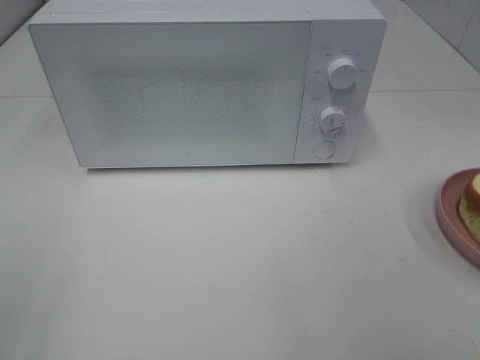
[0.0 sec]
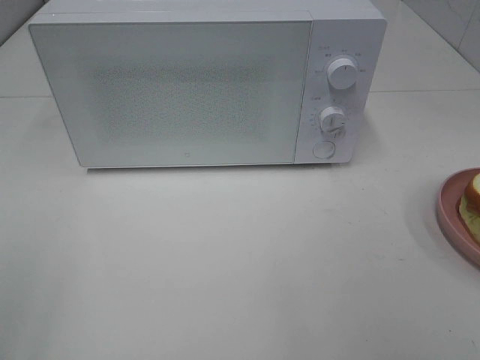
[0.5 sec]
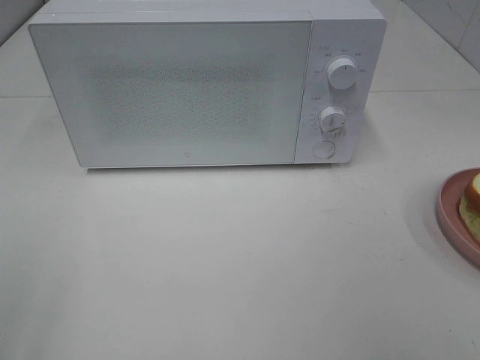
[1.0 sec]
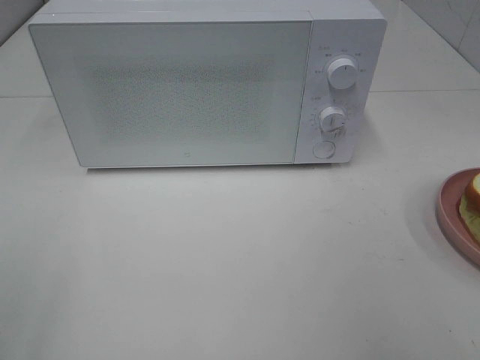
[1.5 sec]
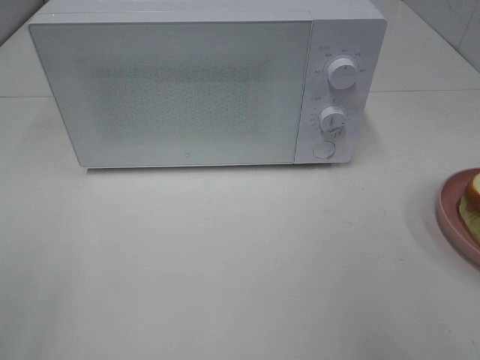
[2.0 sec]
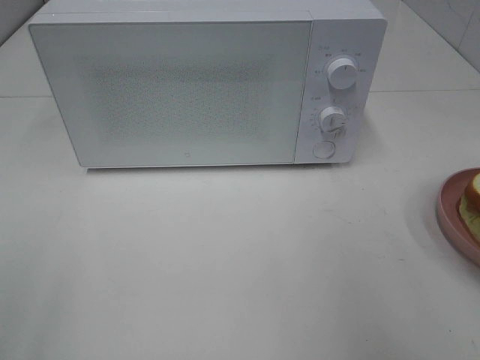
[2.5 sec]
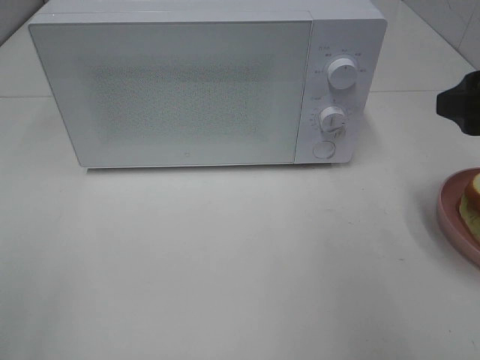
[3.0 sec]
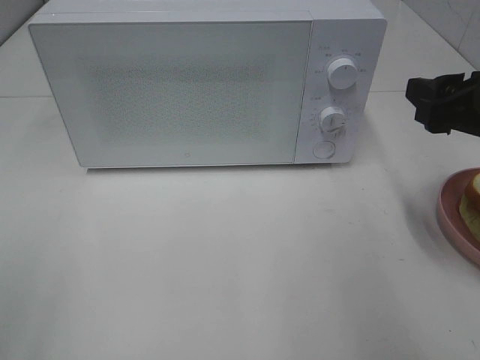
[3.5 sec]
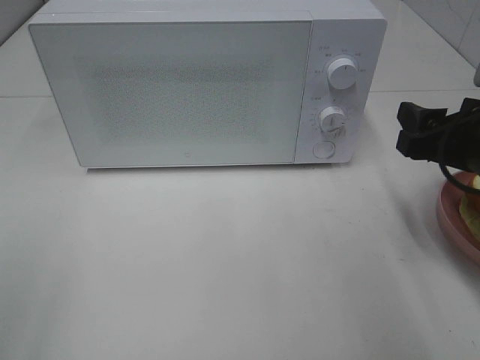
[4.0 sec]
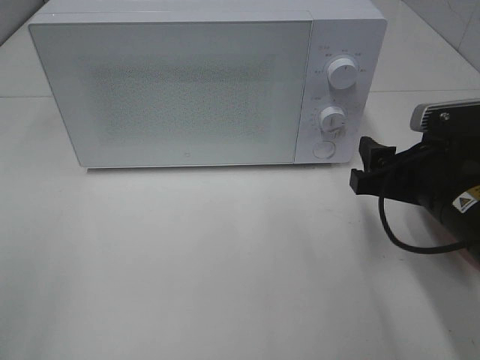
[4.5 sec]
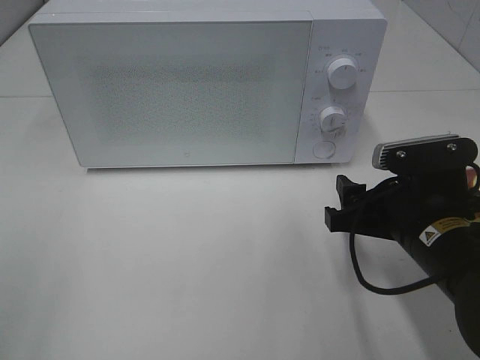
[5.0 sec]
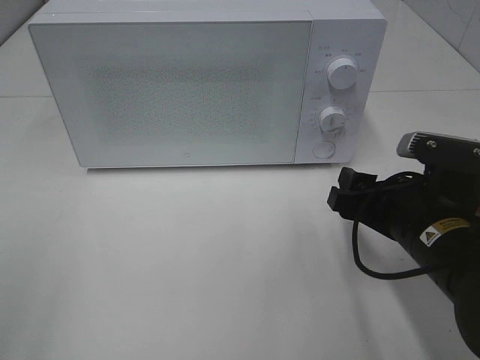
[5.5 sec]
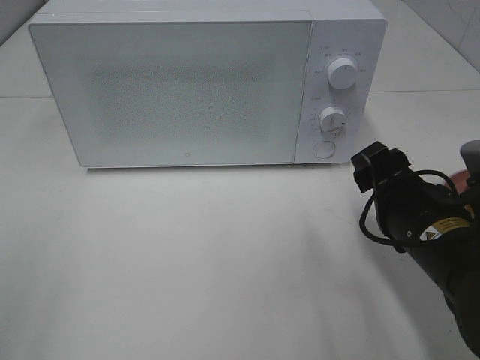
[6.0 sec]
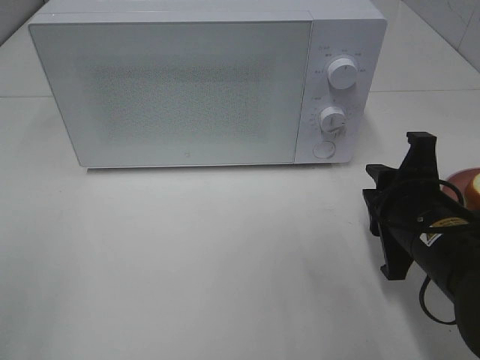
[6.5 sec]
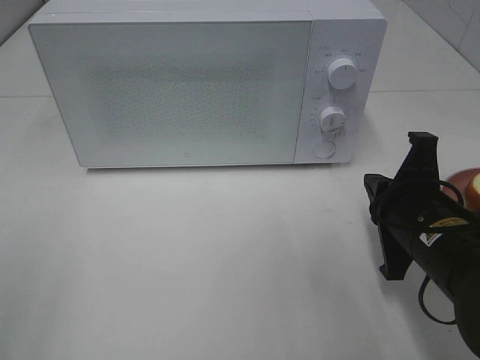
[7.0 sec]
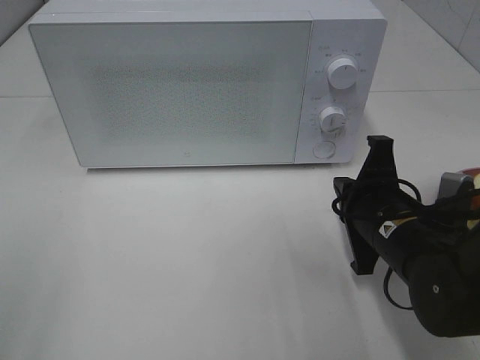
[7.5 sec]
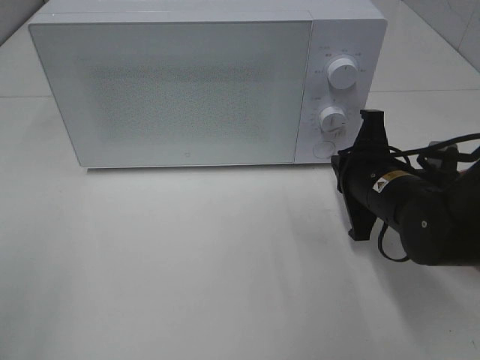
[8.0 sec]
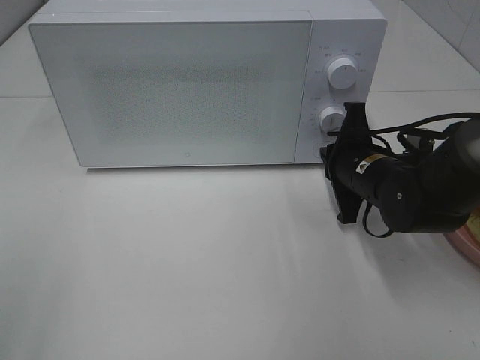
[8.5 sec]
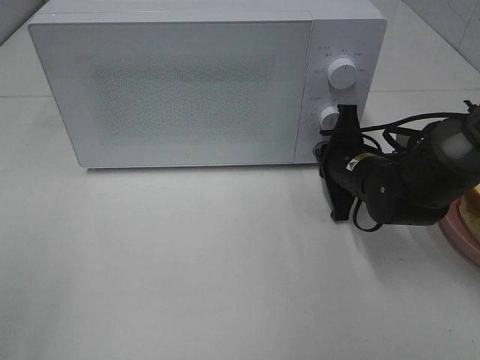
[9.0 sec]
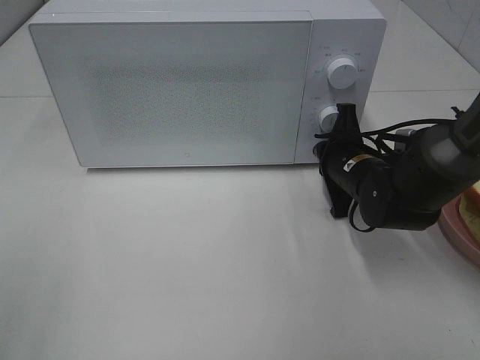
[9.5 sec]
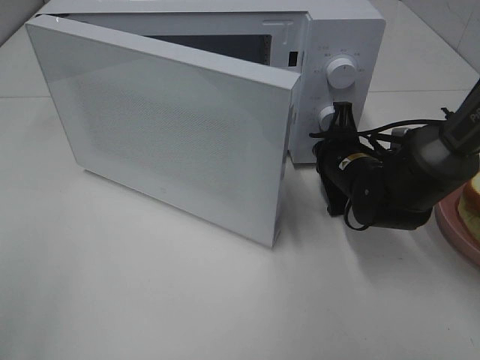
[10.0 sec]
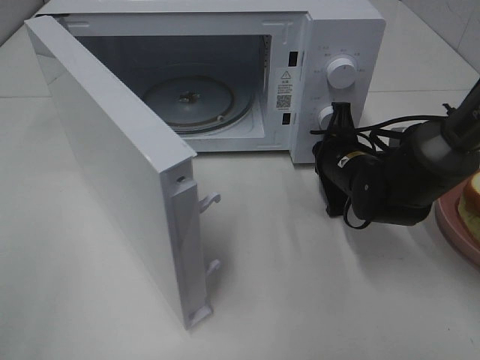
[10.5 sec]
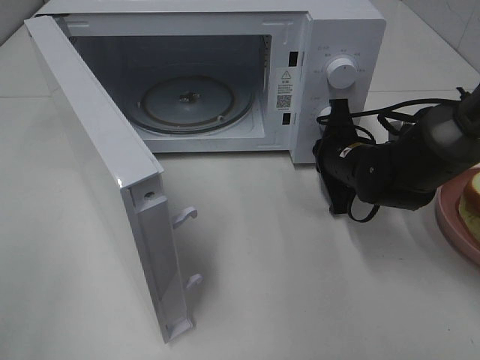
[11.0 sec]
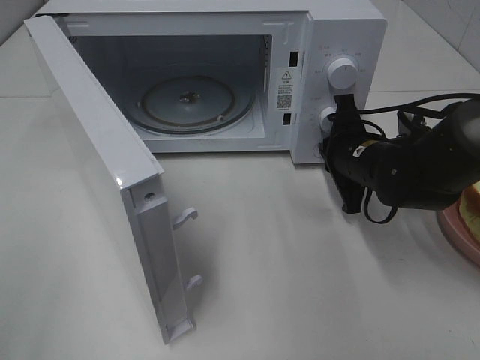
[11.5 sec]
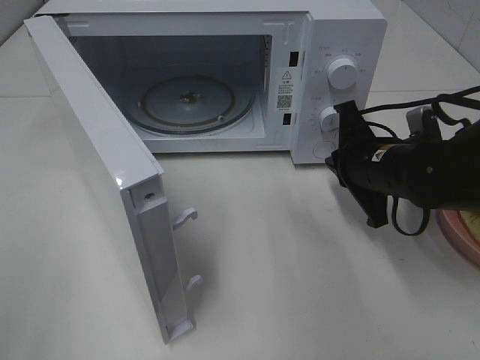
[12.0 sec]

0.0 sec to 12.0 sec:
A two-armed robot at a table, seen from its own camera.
Task of the whole recording: Heat Sandwich.
Step, 0.0 sec to 11.5 sec: Right hand: press the switch.
2.0 sec to 4.0 sec: The right gripper goes approximately 15 cm forward and downward.
4.0 sec to 6.0 sec: The right gripper is displaced to the left and downward by about 10 cm.
6.0 sec to 8.0 sec: The right gripper moves forward, some 10 cm, and closes its fingers.
8.0 sec to 10.0 sec: The right gripper moves forward, some 5 cm.
10.0 sec to 12.0 sec: The right gripper changes place by approximately 5 cm.

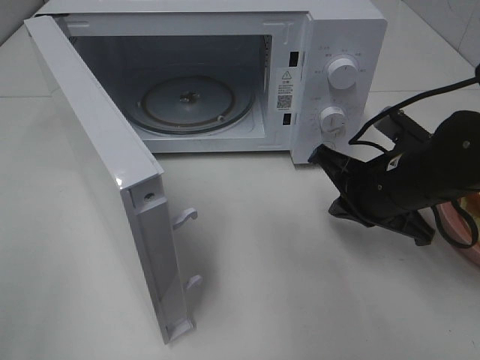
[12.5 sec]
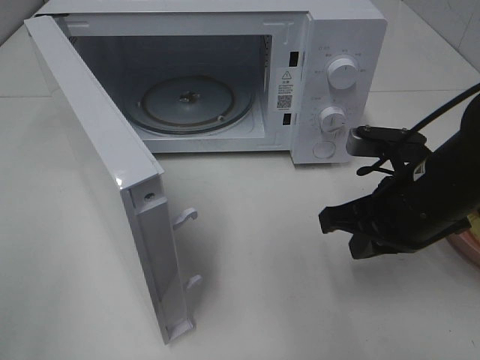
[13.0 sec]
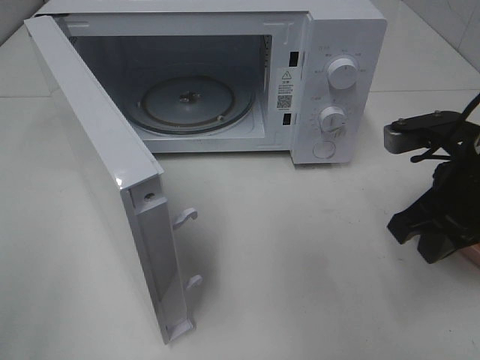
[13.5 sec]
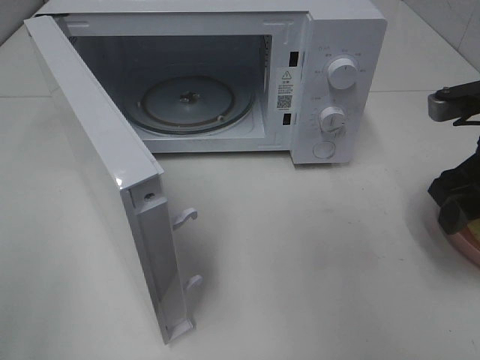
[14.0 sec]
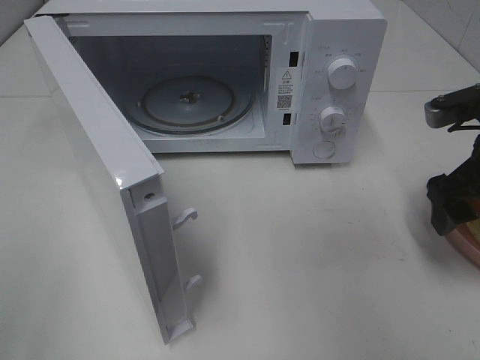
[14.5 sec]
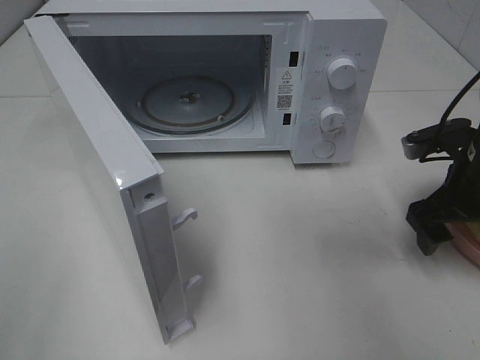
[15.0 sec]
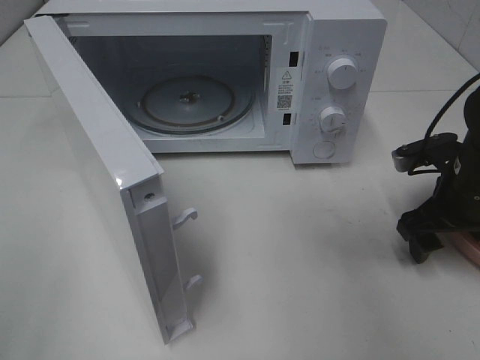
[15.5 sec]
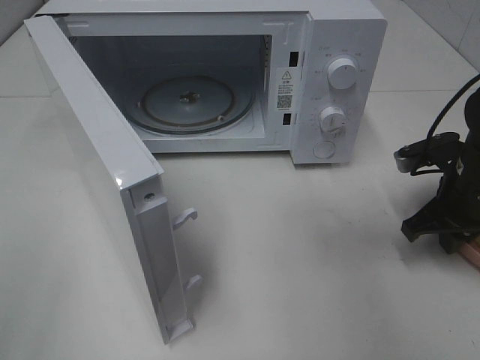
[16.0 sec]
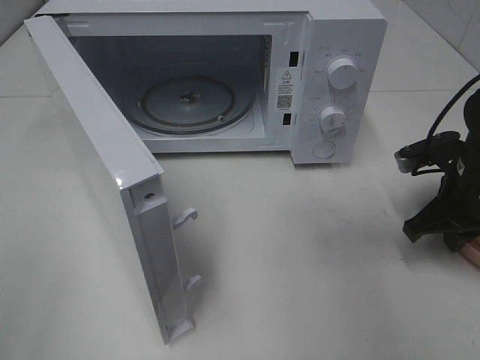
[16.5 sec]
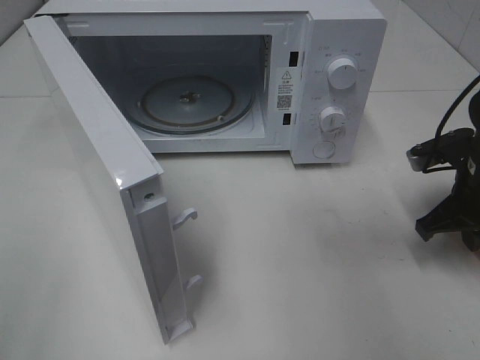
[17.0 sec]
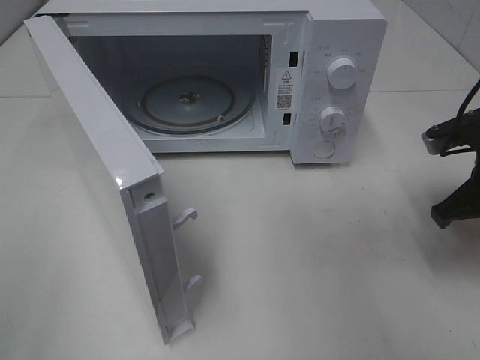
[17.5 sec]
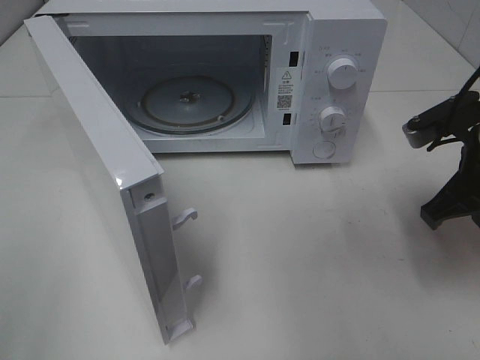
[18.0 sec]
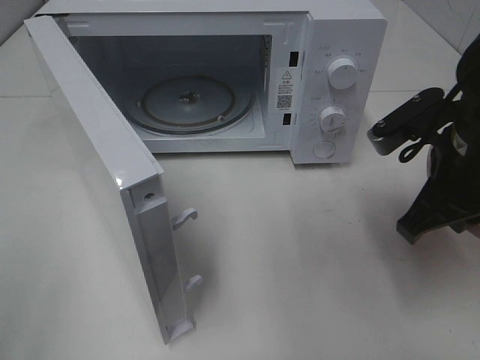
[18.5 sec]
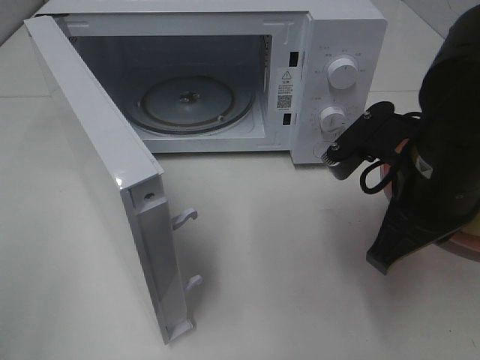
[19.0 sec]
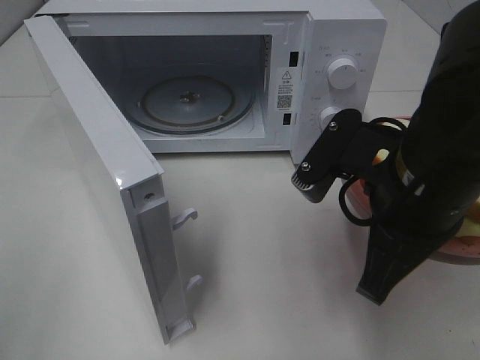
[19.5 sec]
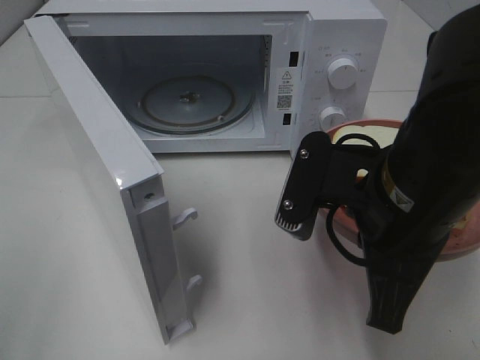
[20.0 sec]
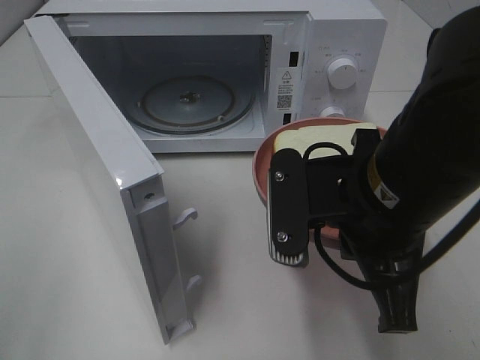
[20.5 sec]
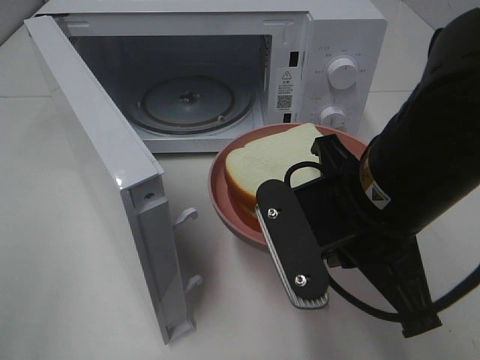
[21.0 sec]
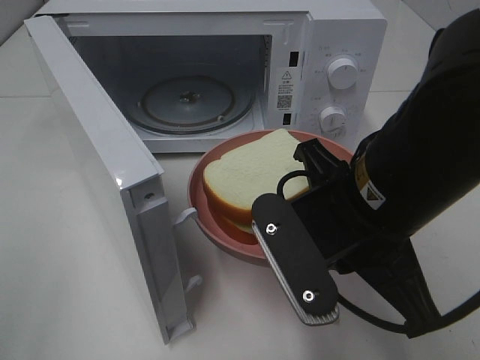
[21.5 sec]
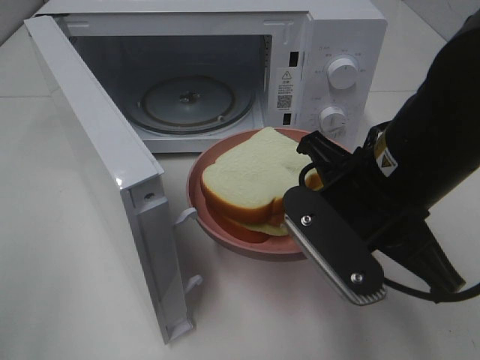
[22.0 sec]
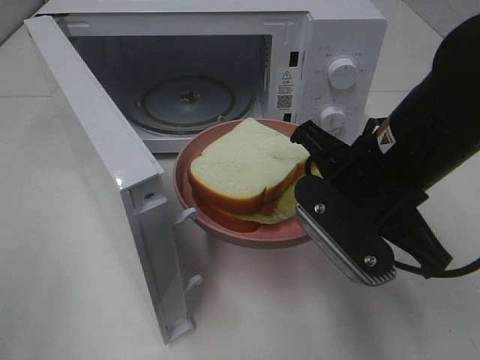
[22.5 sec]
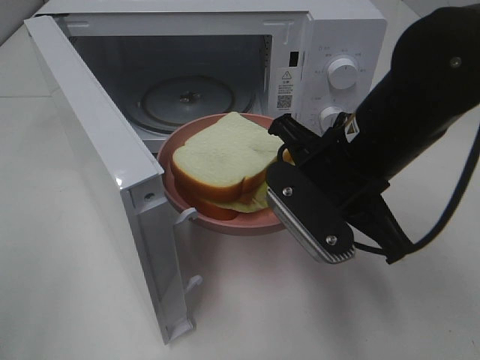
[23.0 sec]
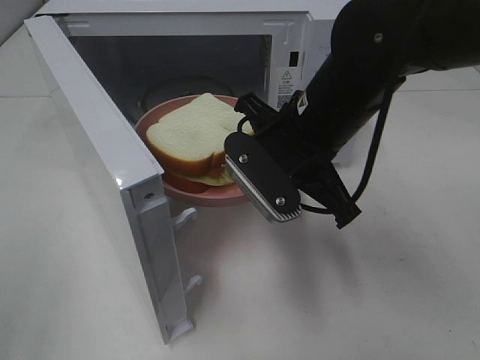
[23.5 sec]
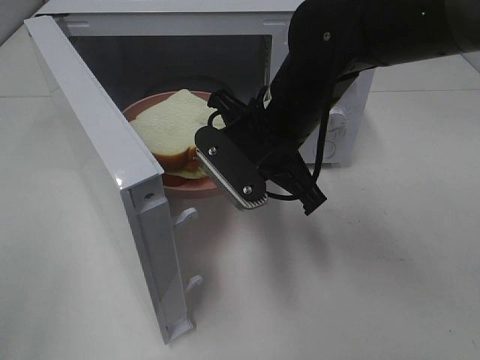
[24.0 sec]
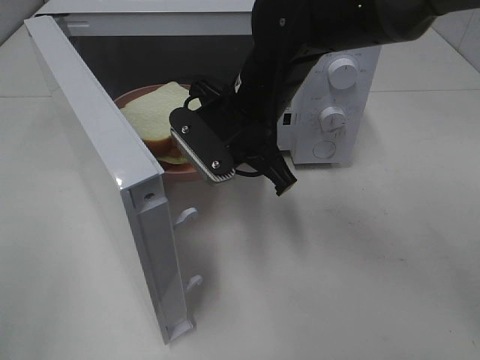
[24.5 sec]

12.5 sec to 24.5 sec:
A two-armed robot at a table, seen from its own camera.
Task of the whole recording: Heat Sandwich.
Step, 12.5 sec to 16.0 sec: Right hand: grab the plate with the sandwich.
12.5 sec to 14.5 sec: The right gripper is displaced to the right and upward by some 10 cm, and opens.
14.5 sec to 16.5 sec: The right gripper goes roughly 10 cm downward, and closes up.
16.5 sec to 18.5 sec: The right gripper shifts about 15 cm upward, to the left and backward.
18.5 sec to 20.5 sec: The right gripper moves to the left and backward, about 10 cm.
22.5 sec to 24.5 sec: The right gripper travels forward and to the left by approximately 15 cm.

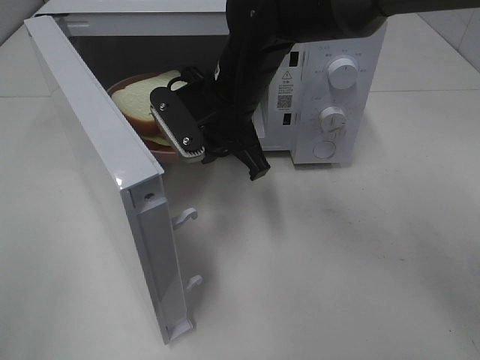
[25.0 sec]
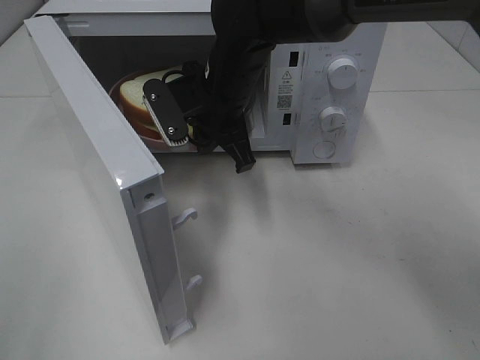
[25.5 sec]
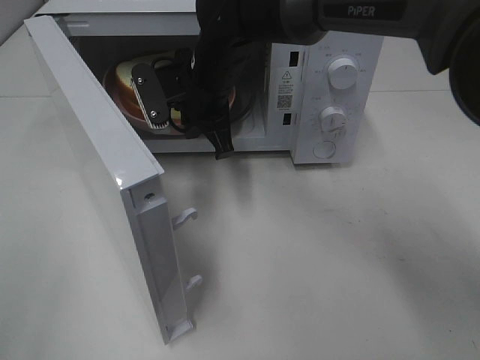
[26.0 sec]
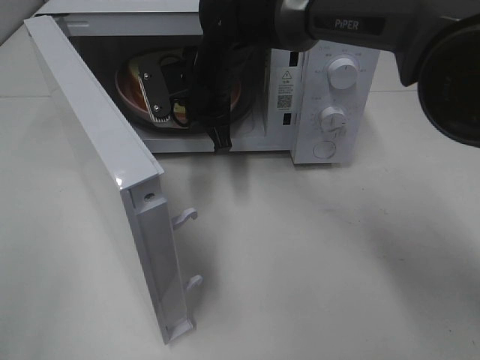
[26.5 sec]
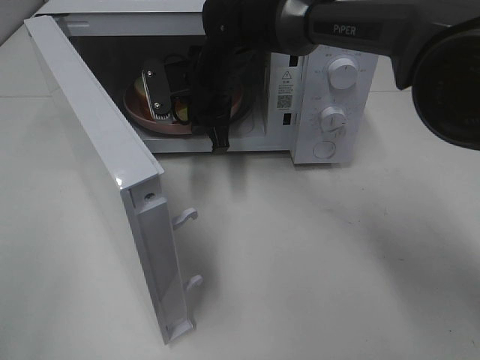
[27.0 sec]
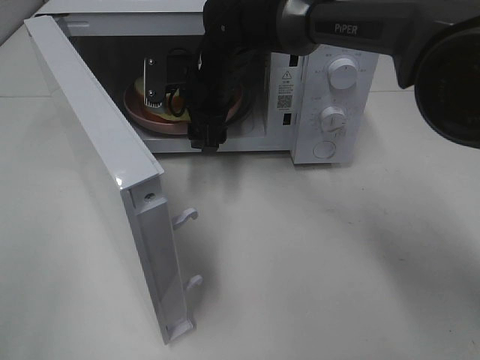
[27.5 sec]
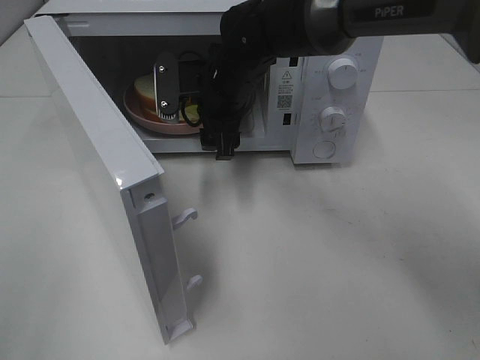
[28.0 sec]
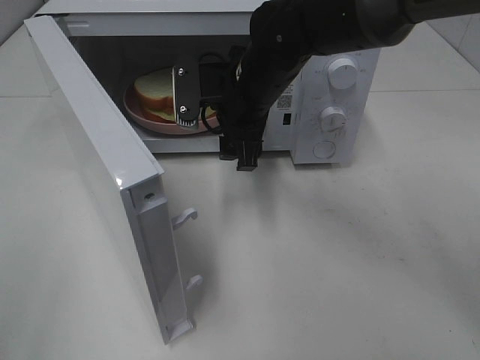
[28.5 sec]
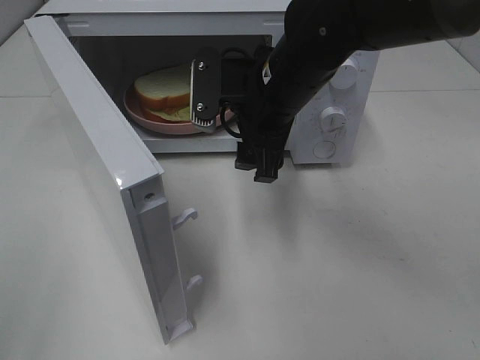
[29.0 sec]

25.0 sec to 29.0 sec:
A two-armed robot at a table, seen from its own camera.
Task of the whole recording: Heat Sandwich.
Step, 25.0 sec to 27.0 sec: Right hand: place the plate in the microwave.
25.0 sec to 27.0 sec: The right gripper travels forward by about 10 cm.
27.0 sec to 29.0 sec: The right gripper heads backward and to the right, covering some 15 cm, and opens up.
